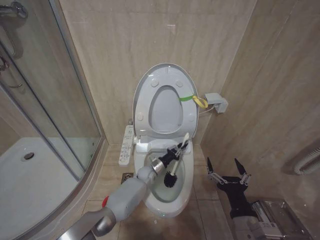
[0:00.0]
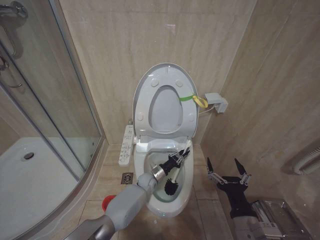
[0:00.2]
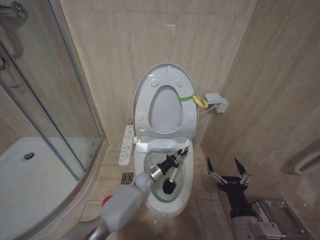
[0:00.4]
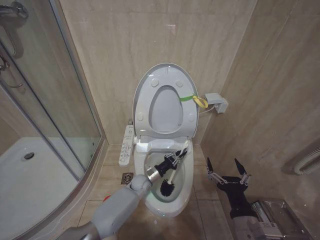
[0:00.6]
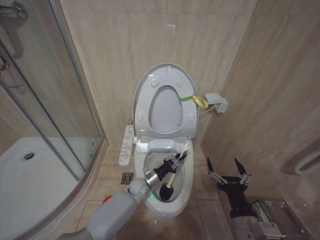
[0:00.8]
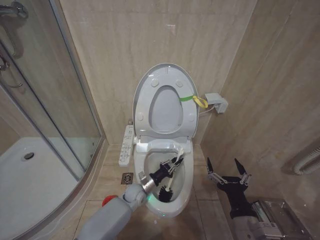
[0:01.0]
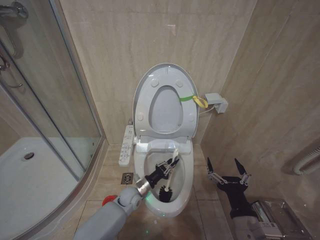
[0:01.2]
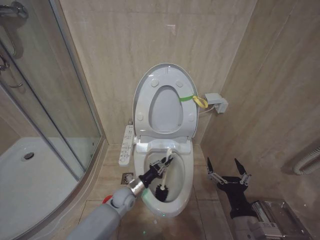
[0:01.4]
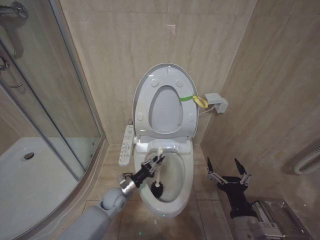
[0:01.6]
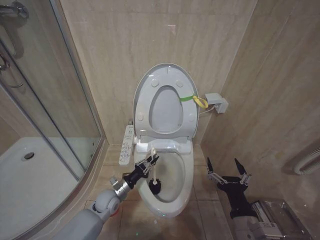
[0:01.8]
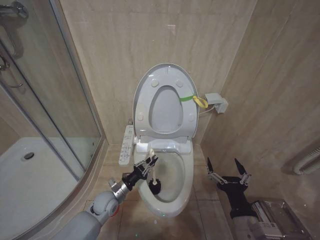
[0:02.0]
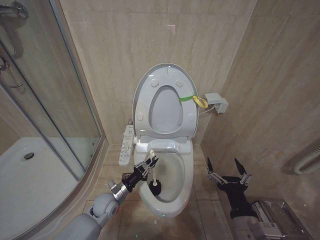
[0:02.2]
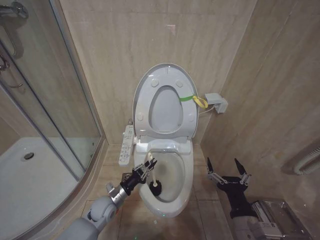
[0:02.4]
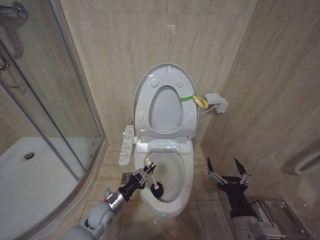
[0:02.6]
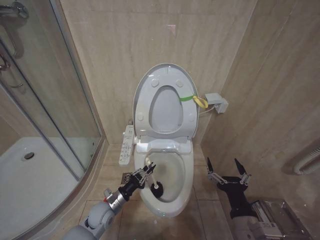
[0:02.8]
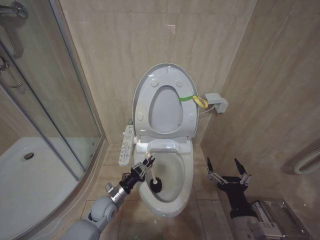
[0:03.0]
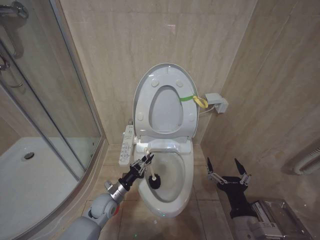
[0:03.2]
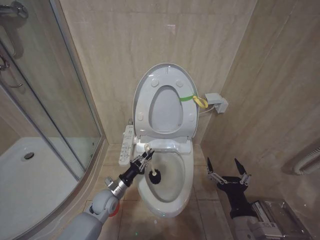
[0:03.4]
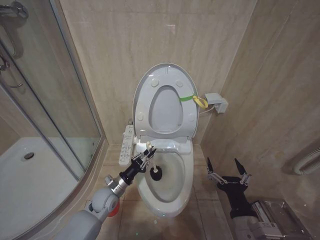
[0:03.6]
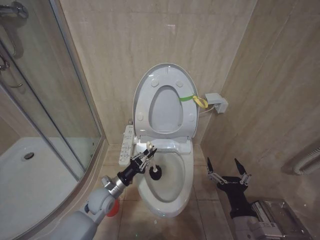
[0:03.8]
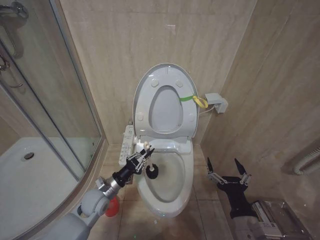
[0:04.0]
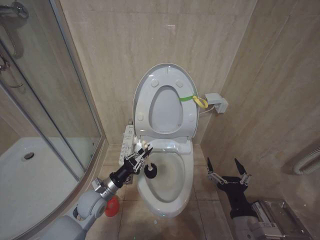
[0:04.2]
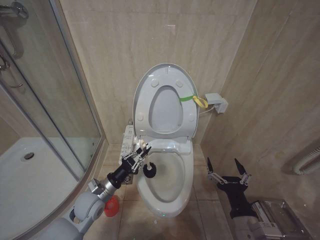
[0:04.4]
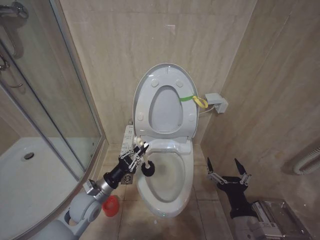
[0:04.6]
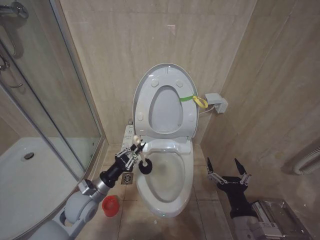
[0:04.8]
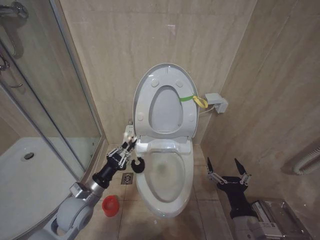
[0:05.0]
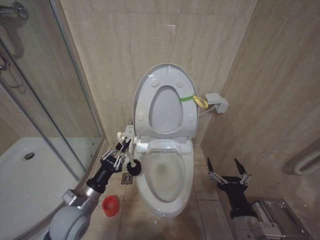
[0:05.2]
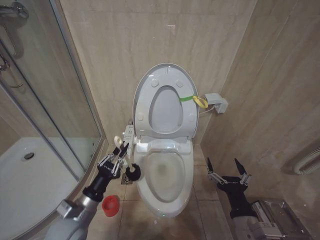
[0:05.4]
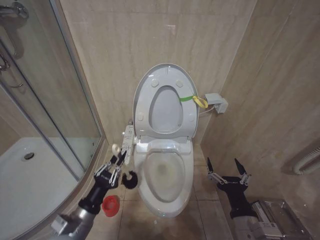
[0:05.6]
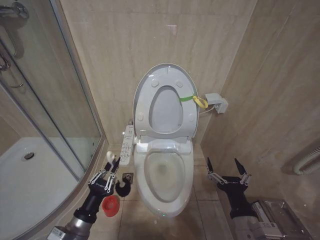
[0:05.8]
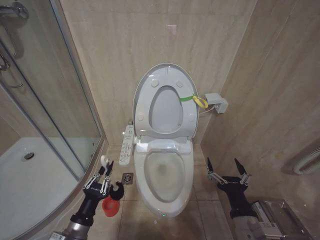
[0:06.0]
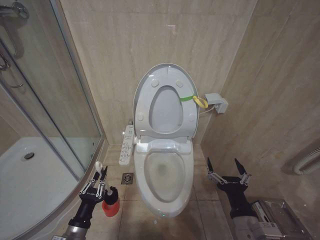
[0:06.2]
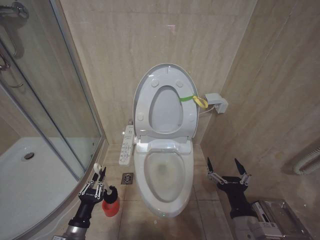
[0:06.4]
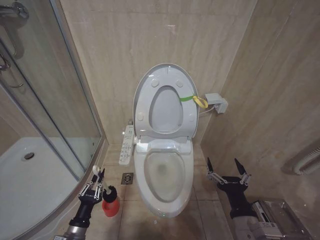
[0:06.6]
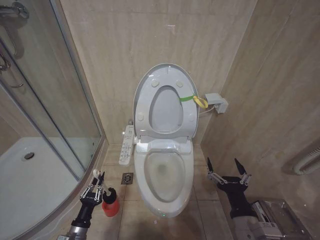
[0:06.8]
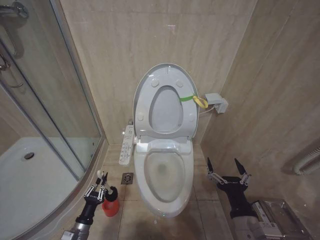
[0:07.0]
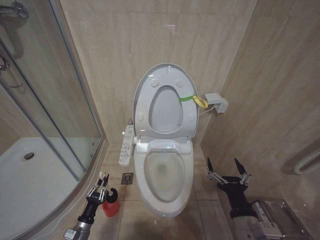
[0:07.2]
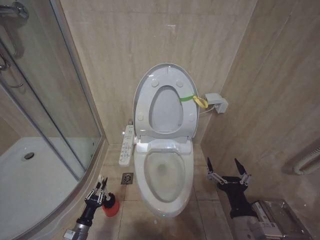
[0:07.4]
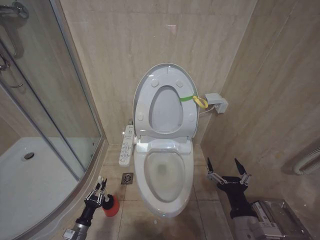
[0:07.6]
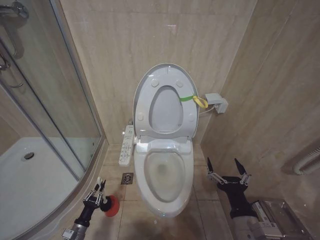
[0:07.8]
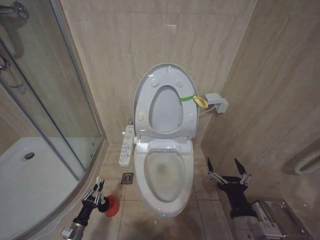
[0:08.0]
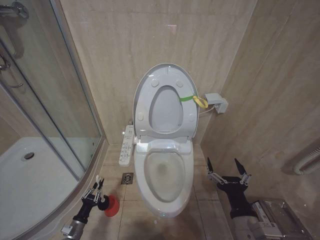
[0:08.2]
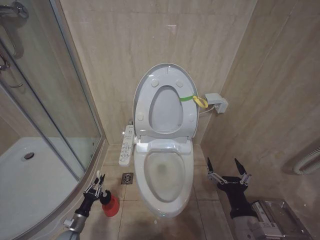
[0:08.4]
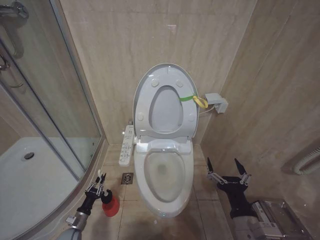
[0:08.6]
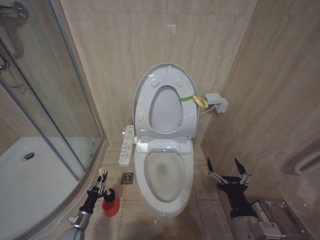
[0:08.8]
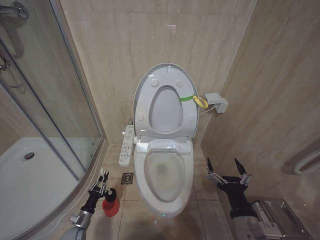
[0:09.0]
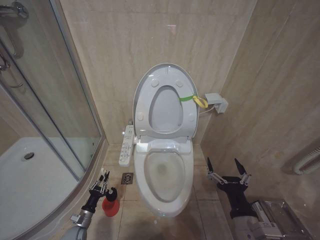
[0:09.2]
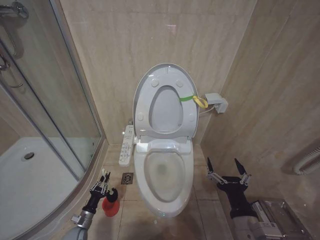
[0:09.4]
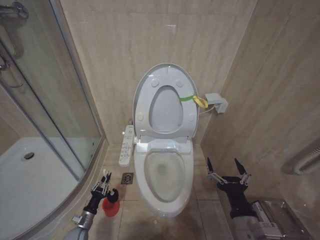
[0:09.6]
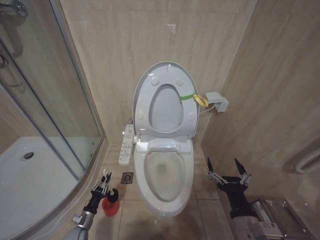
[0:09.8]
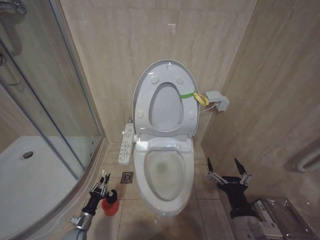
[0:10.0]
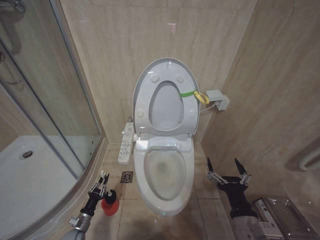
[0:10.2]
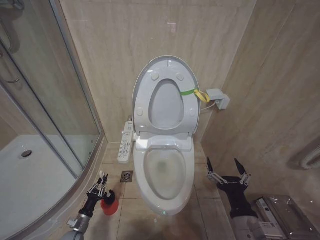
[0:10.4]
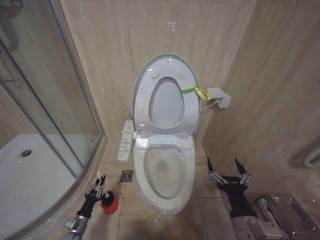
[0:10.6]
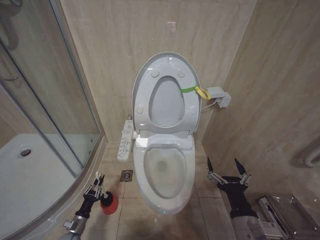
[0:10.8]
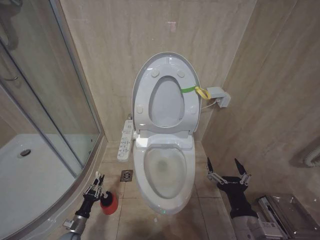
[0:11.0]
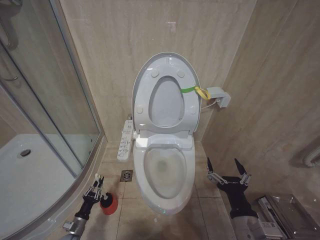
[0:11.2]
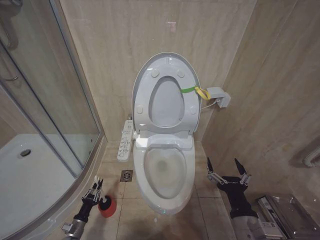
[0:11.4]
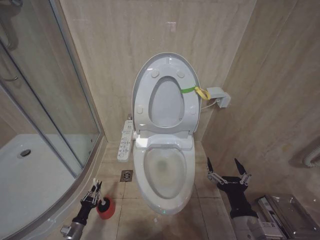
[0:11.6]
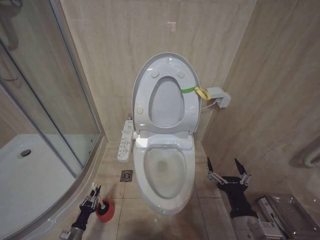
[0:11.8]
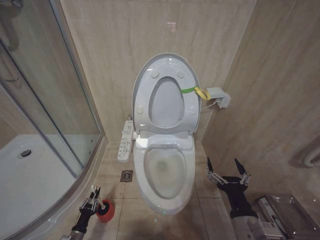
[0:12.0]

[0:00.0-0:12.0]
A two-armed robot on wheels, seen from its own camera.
Task of the whole recording: Open the toilet lid, clean the toilet bowl with a toilet brush, close the toilet lid, and flush.
0:00.0 to 0:01.6: The left gripper travels to the left and backward by approximately 20 cm.
0:01.6 to 0:03.0: The left gripper shifts by roughly 5 cm.
0:03.0 to 0:04.4: The left gripper shifts roughly 10 cm upward.
0:04.4 to 0:06.0: The left gripper travels backward by some 15 cm.
0:06.0 to 0:07.6: The left gripper moves downward and to the left, approximately 25 cm.
0:07.6 to 0:09.0: The left gripper shifts roughly 5 cm forward.
0:09.0 to 0:10.4: The two grippers keep their place.
0:10.4 to 0:12.0: The left gripper is displaced backward by about 5 cm.

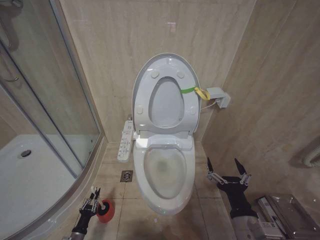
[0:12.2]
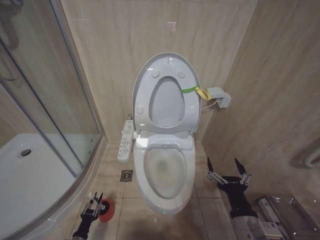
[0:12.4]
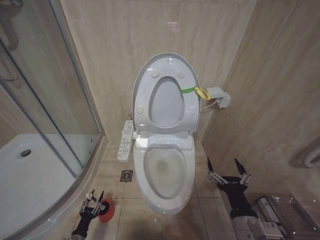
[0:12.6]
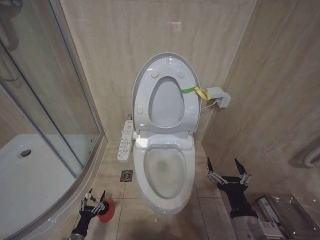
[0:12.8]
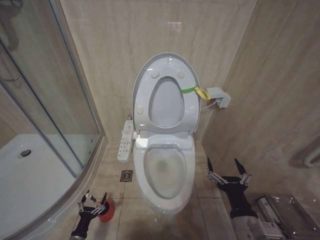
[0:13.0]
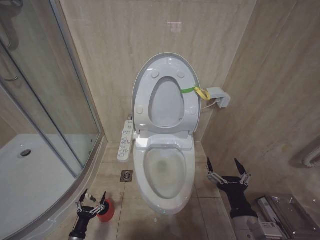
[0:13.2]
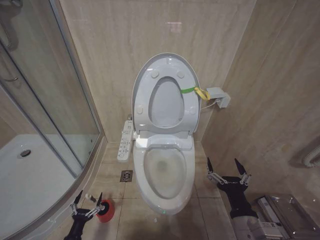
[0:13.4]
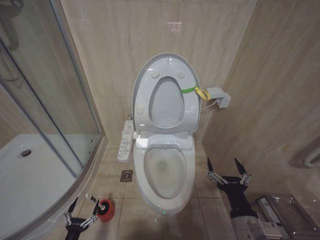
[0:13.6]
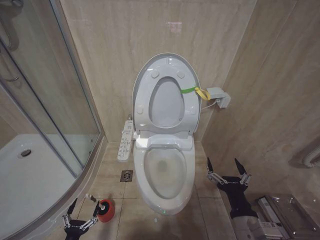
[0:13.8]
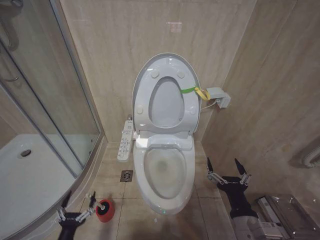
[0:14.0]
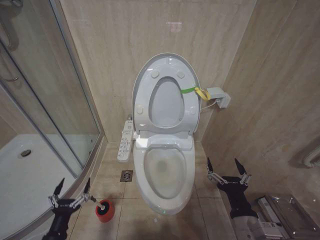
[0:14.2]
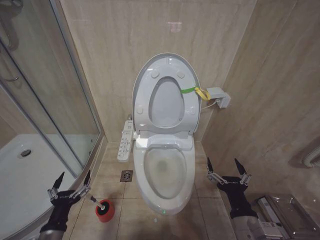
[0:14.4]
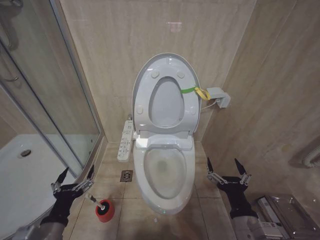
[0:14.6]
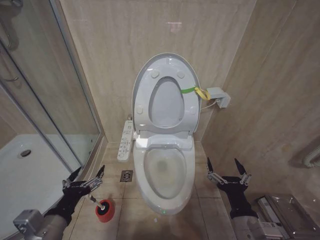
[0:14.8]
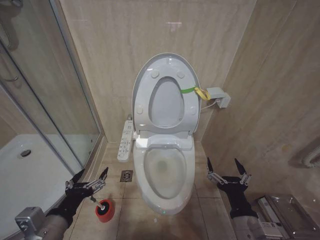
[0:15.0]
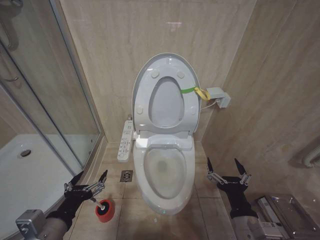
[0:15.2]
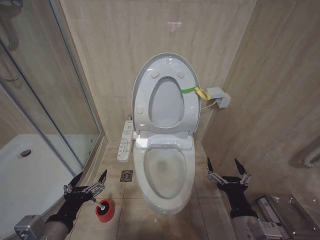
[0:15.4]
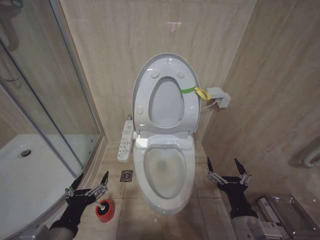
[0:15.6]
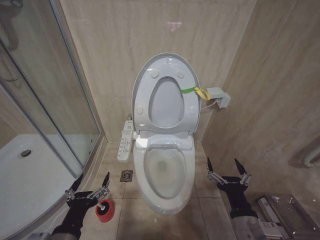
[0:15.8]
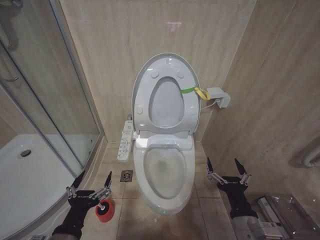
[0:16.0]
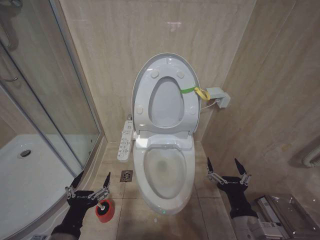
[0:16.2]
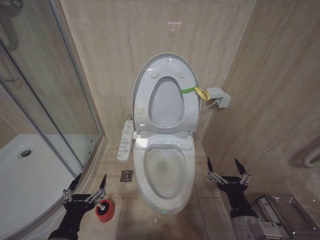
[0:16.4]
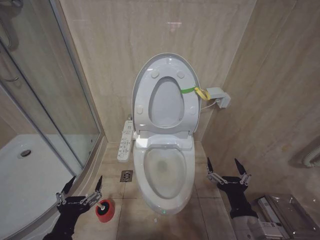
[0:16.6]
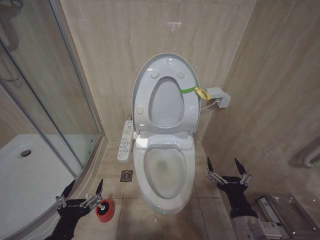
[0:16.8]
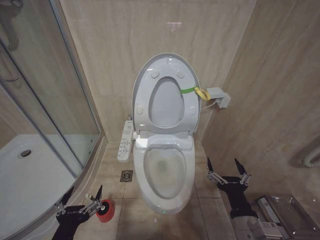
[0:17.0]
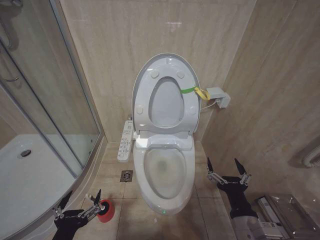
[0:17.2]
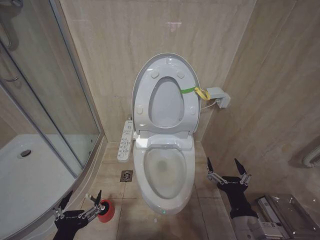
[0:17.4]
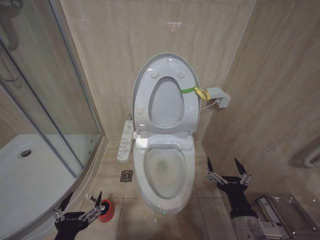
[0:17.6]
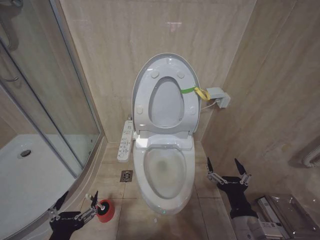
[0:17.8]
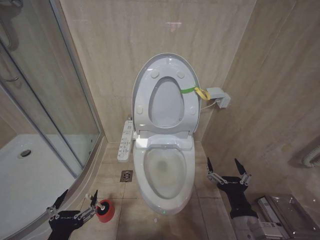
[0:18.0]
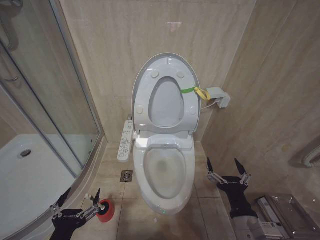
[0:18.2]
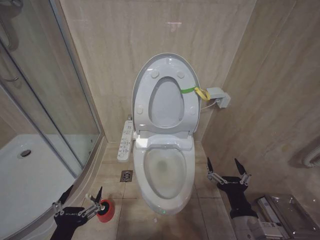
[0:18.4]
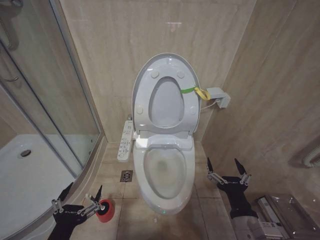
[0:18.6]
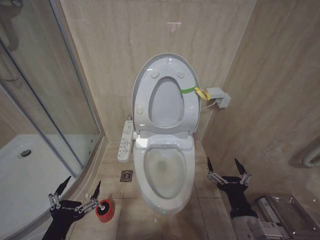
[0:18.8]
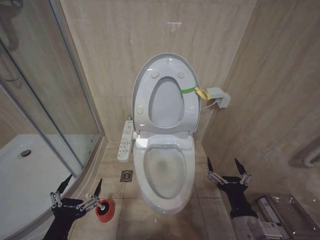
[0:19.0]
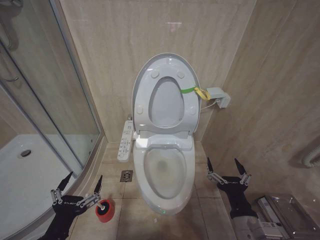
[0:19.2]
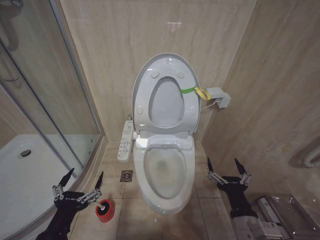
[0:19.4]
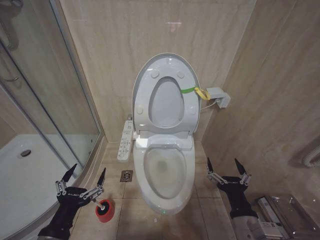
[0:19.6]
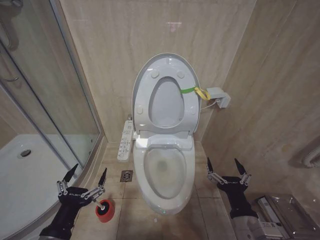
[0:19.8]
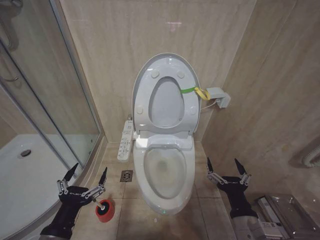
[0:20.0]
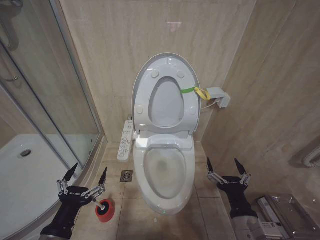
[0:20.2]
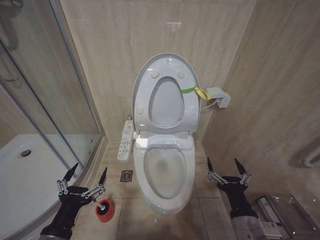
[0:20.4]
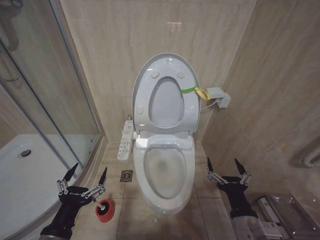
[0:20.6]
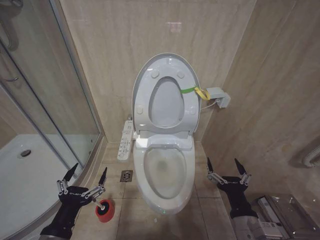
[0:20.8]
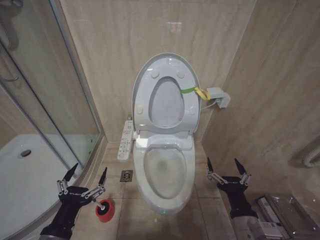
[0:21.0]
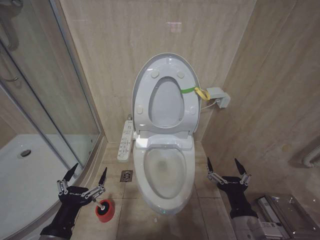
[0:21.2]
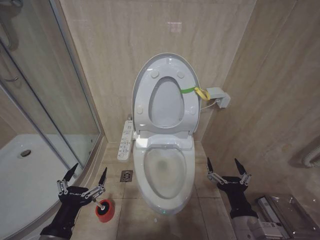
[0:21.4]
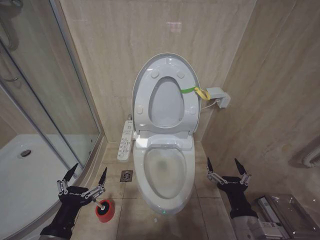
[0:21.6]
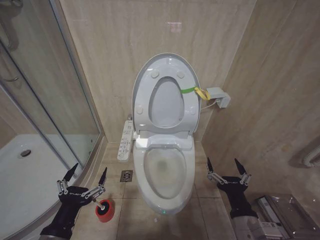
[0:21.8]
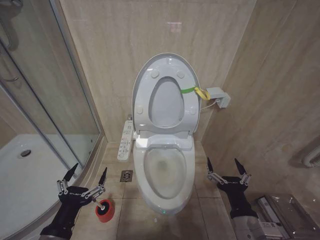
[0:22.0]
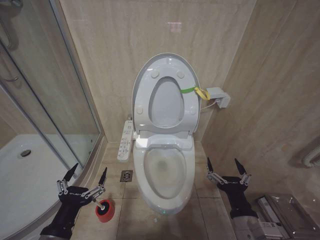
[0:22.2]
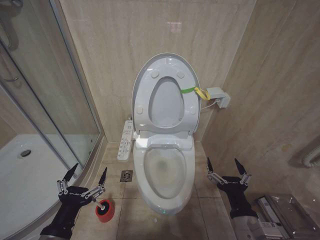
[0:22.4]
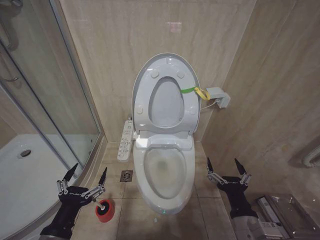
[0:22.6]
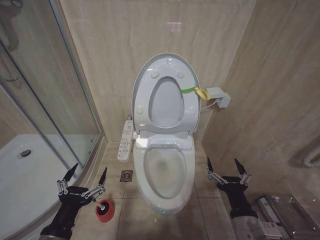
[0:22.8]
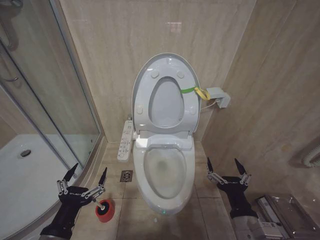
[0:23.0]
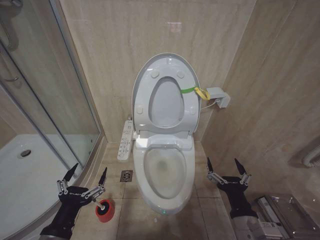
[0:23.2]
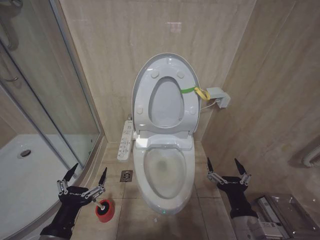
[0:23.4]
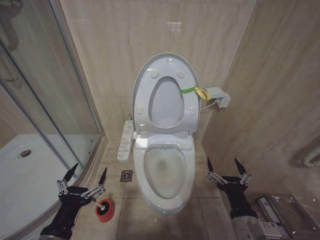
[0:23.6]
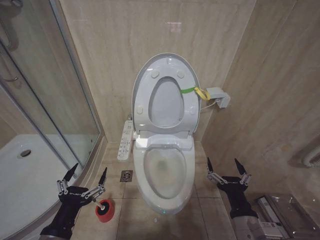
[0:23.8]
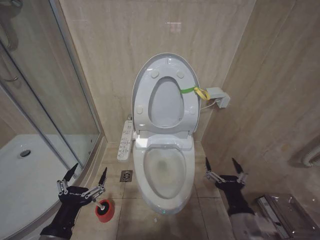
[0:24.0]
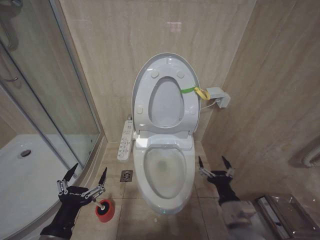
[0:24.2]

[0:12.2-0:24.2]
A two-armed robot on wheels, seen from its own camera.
Task of the whole recording: Open the toilet lid, clean the toilet bowl with a toilet brush, close the toilet lid, and flush.
0:12.2 to 0:13.8: The left gripper travels backward and upward by approximately 15 cm, and opens up.
0:13.8 to 0:15.2: The left gripper heads upward, covering about 30 cm.
0:15.2 to 0:16.6: The left gripper moves approximately 5 cm.
0:16.6 to 0:19.8: The grippers make only small movements.
0:19.8 to 0:22.6: Neither gripper changes place.
0:22.6 to 0:24.2: The grippers stay close to where they were, moving slightly.
